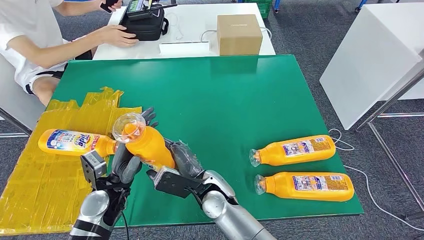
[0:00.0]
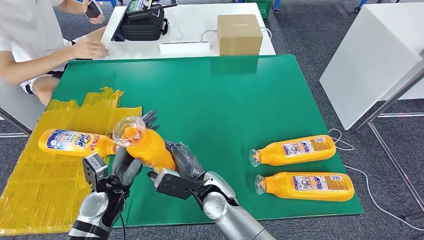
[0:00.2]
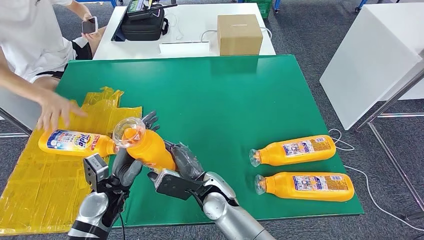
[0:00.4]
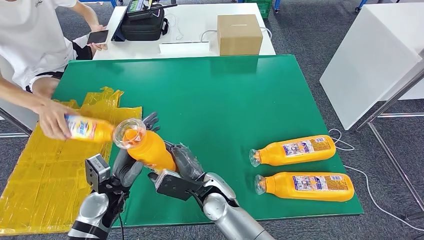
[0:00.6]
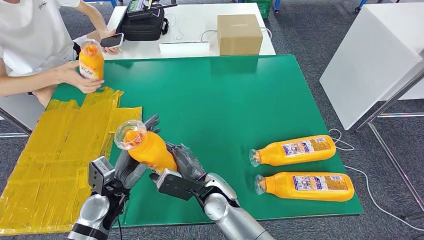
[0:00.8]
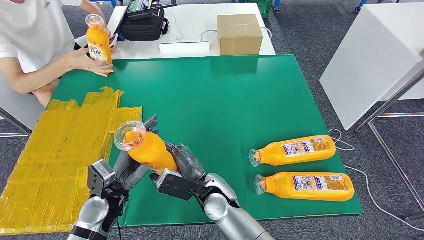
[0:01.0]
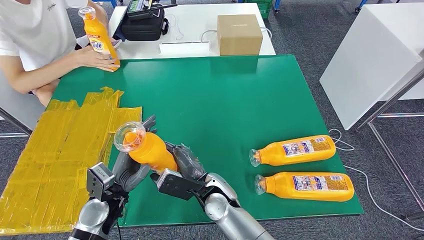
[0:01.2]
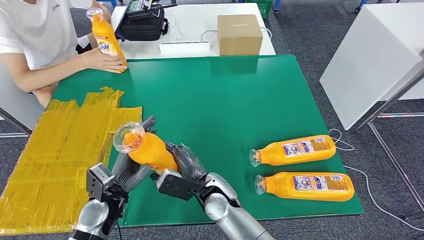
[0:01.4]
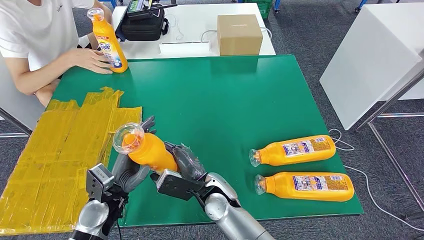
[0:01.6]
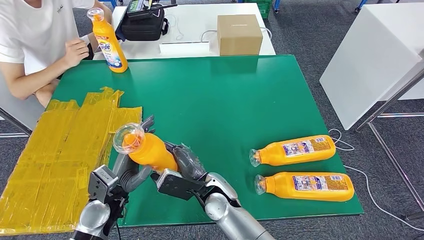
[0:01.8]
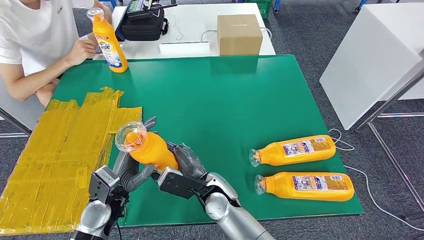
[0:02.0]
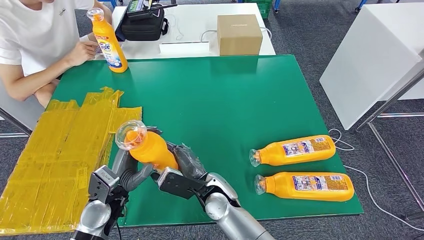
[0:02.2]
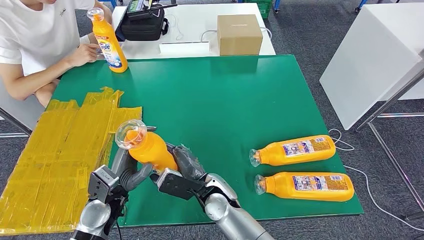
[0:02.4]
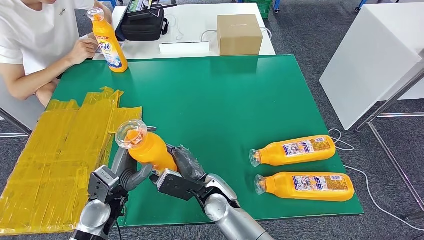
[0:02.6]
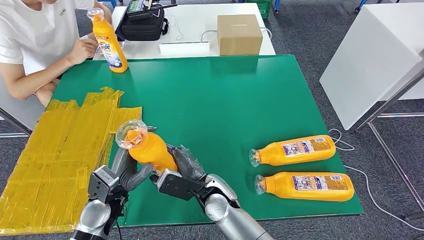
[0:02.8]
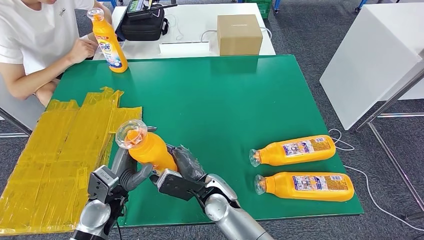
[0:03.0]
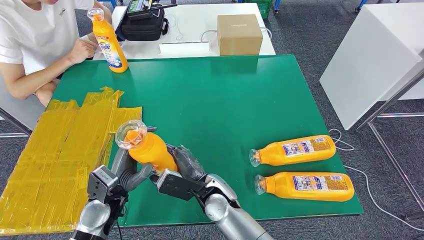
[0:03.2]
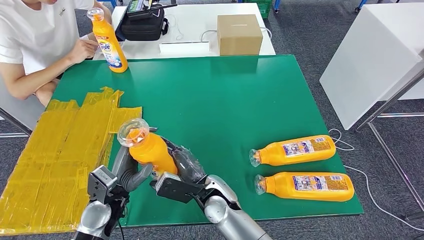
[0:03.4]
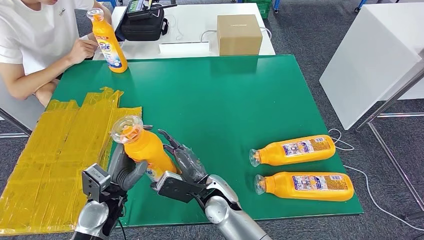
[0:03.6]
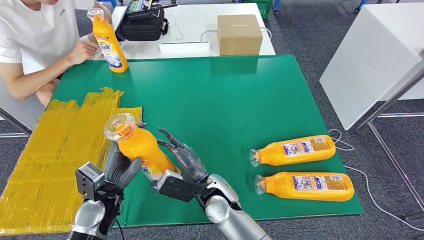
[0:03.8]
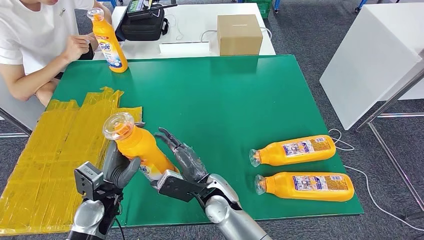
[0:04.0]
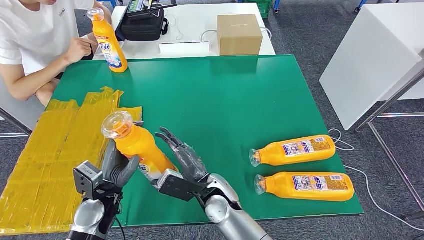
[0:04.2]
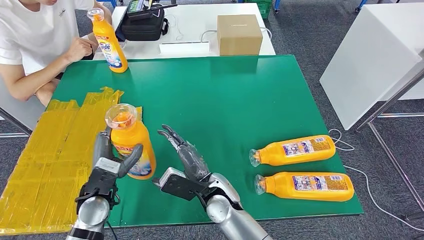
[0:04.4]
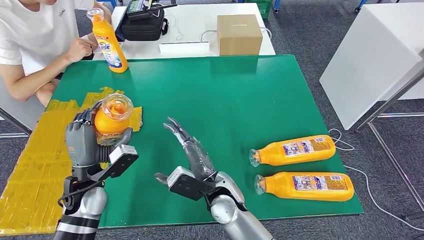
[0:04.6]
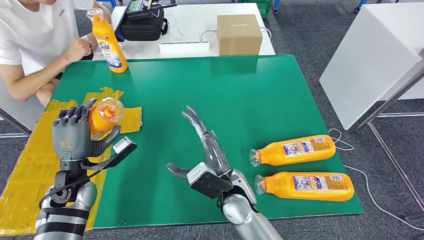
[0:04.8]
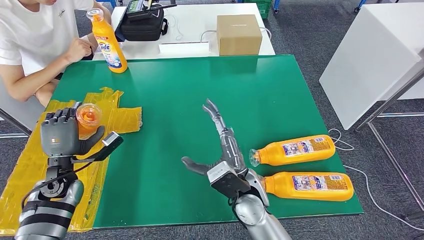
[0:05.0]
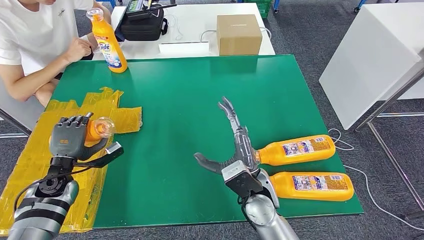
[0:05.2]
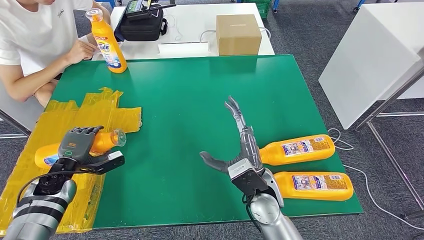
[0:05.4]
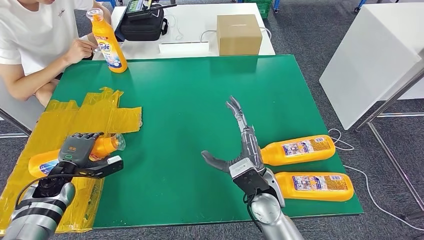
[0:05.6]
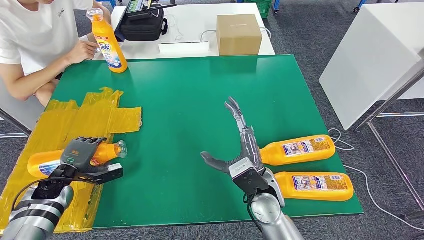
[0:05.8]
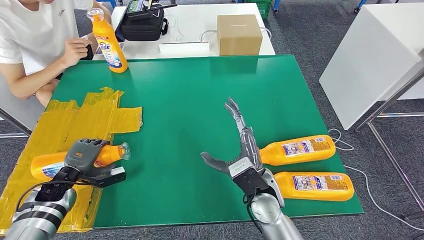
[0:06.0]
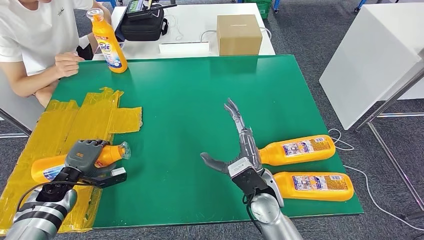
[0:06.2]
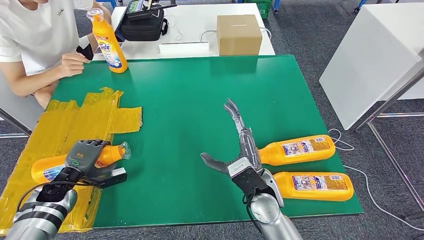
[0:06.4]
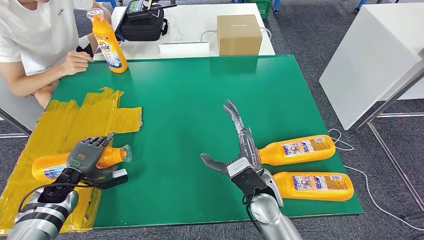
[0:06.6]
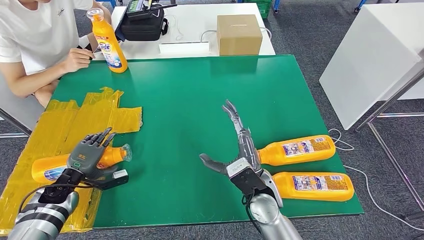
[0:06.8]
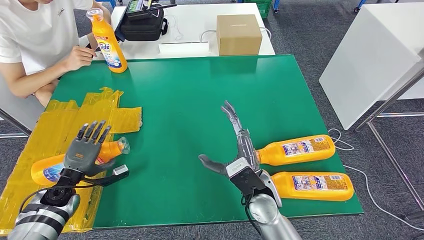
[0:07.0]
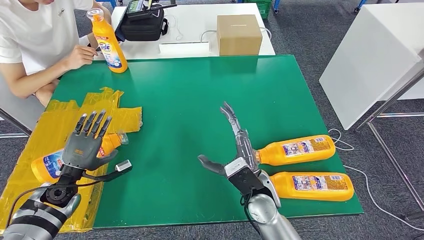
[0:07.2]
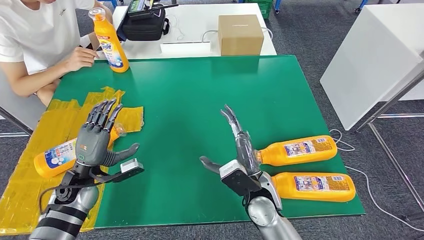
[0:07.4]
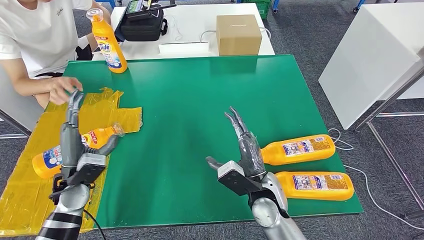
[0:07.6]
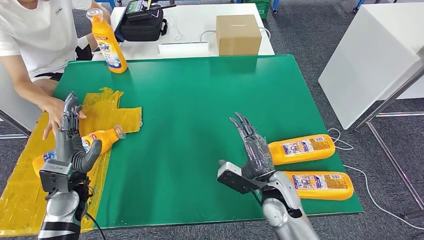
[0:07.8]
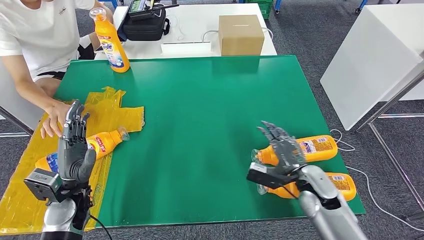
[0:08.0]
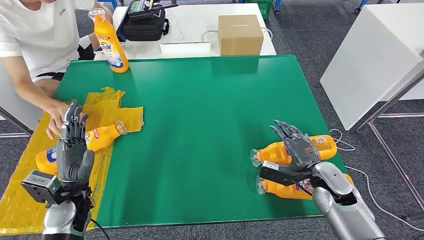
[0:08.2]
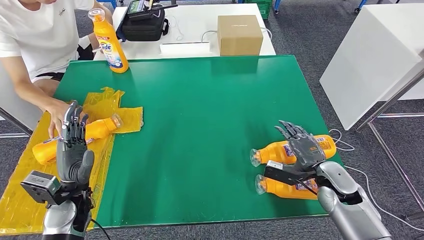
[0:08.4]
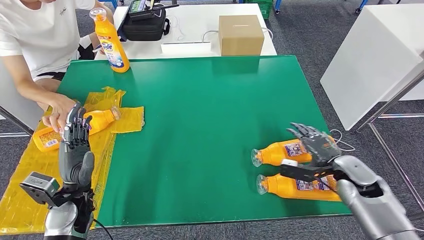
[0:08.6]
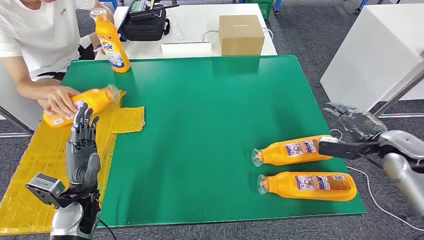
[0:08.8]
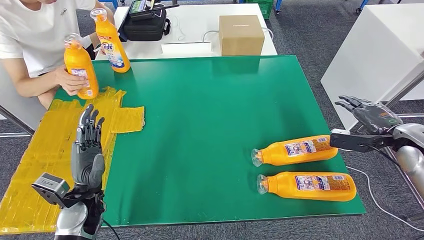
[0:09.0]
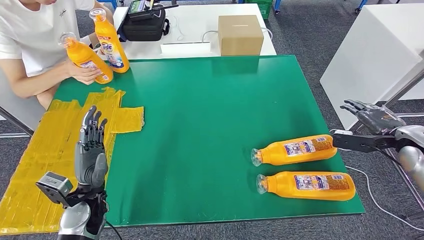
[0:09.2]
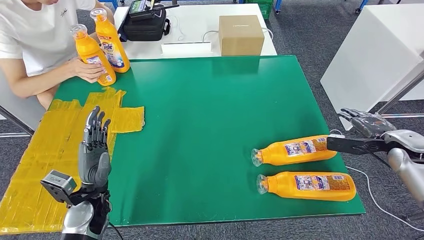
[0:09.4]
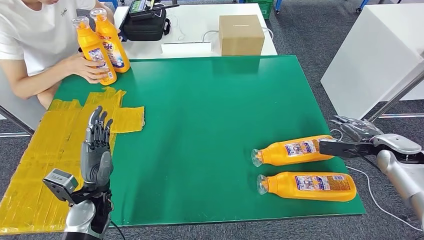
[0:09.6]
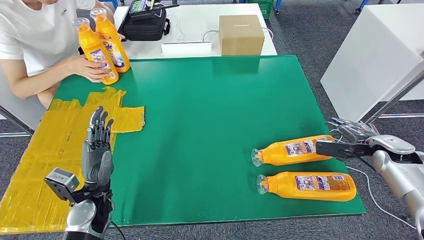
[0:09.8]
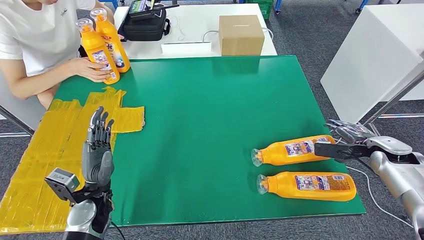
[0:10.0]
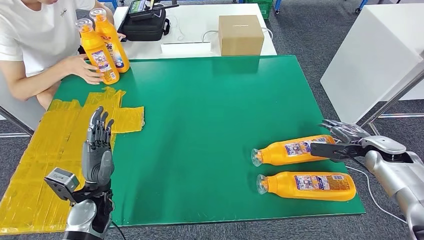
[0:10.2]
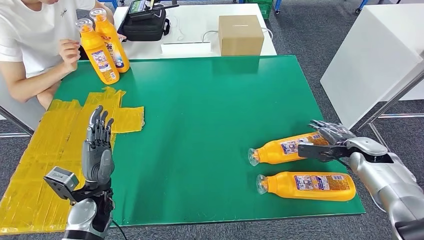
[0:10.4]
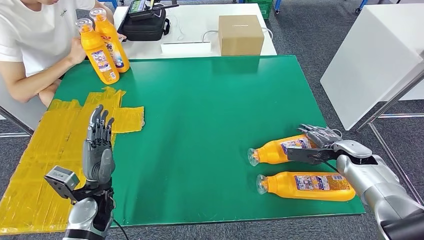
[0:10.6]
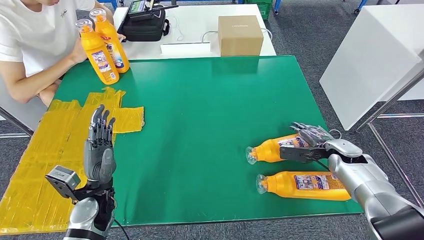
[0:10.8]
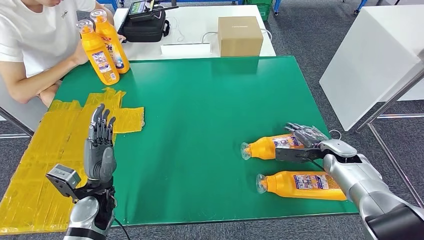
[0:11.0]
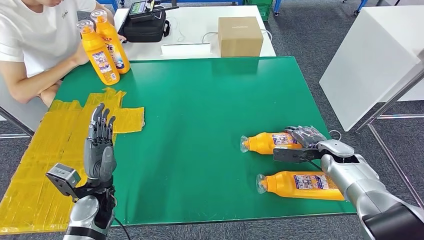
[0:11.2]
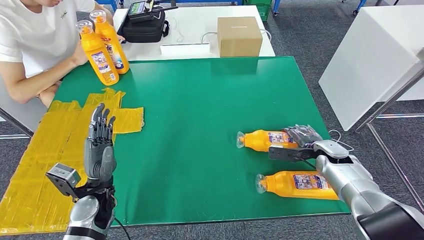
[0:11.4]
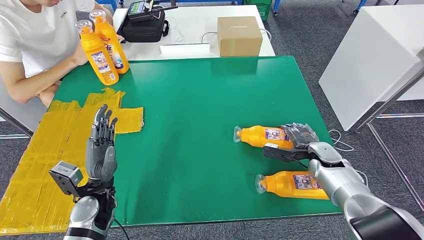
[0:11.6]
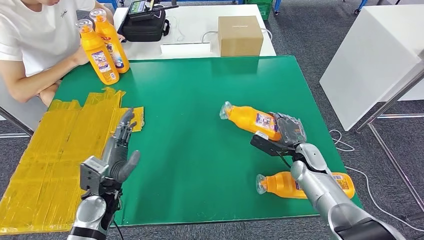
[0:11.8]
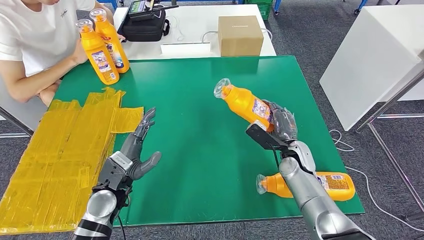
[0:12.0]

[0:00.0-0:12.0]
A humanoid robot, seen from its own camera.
Step, 0:00.0 to 0:08.6: Flip the bottle to face forward.
0:00.0 to 0:01.6: The hands move only a little.
0:01.6 to 0:03.0: The two hands keep their place.
0:04.4 to 0:06.0: The left hand goes approximately 15 cm to the left and downward; the right hand goes approximately 10 cm to the right.
0:06.0 to 0:07.6: The left hand shifts about 10 cm to the right and upward.
0:09.0 to 0:10.4: The right hand moves downward, roughly 10 cm.

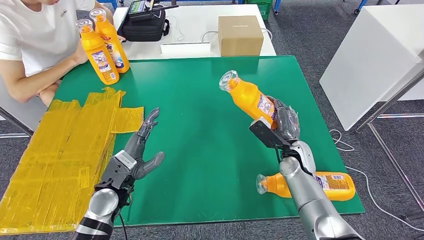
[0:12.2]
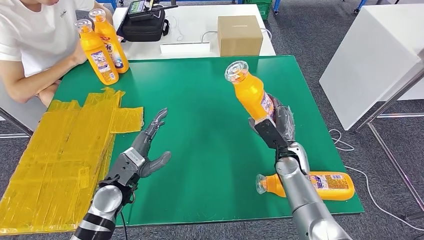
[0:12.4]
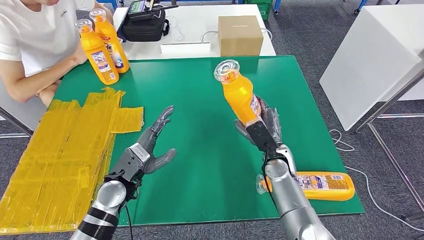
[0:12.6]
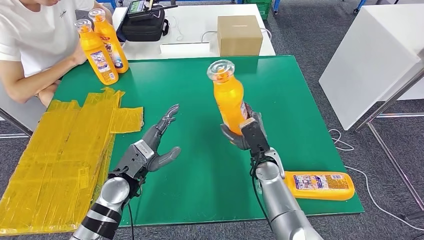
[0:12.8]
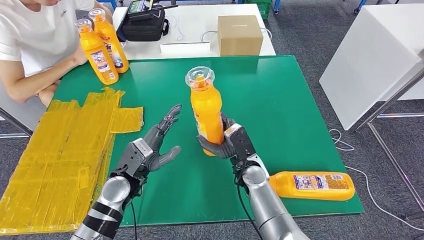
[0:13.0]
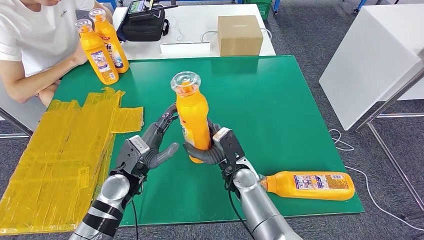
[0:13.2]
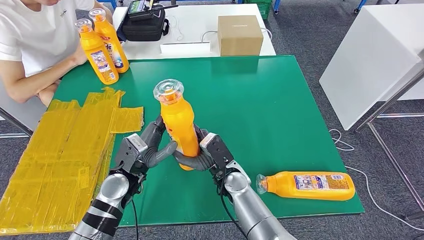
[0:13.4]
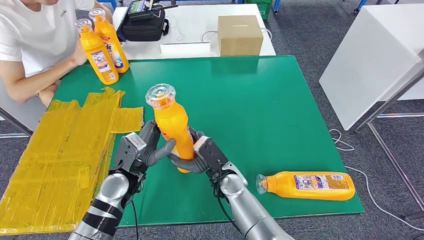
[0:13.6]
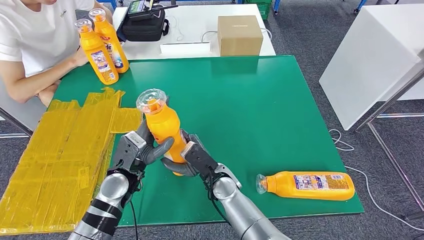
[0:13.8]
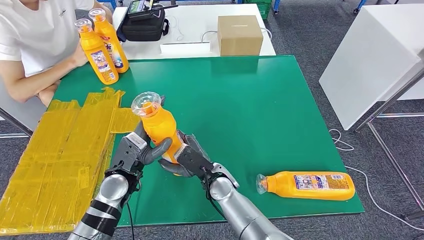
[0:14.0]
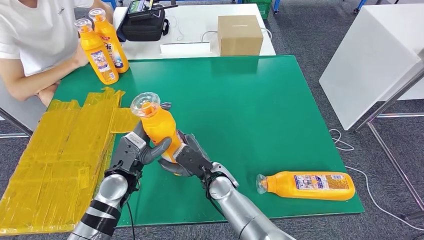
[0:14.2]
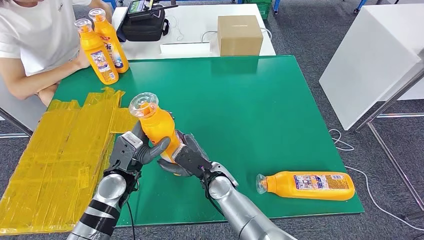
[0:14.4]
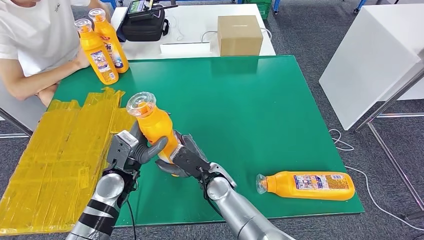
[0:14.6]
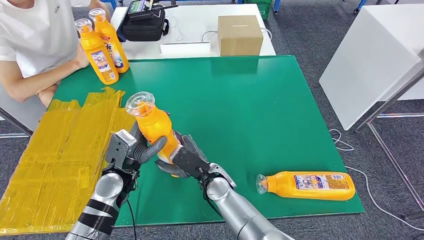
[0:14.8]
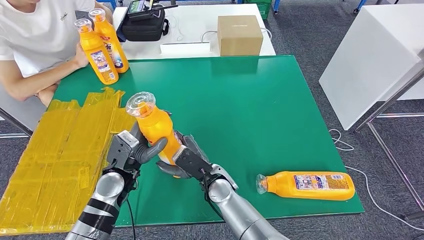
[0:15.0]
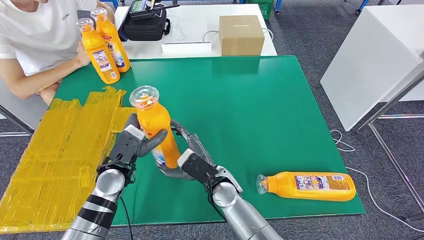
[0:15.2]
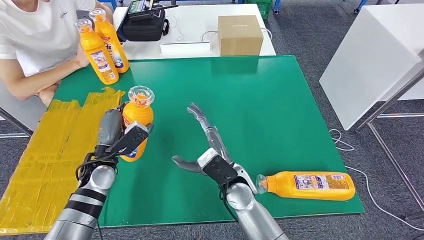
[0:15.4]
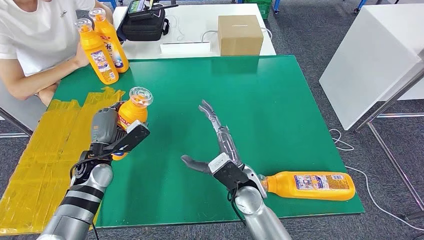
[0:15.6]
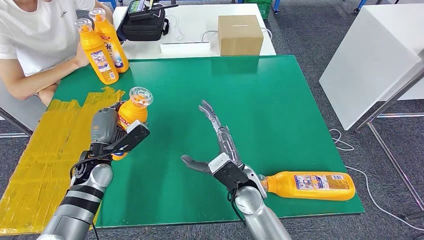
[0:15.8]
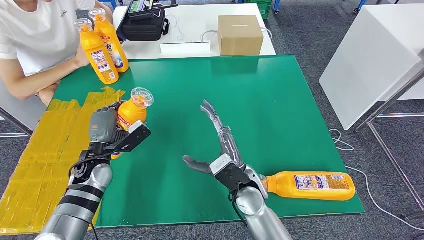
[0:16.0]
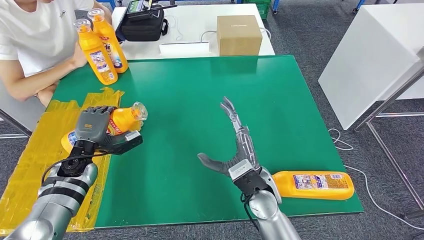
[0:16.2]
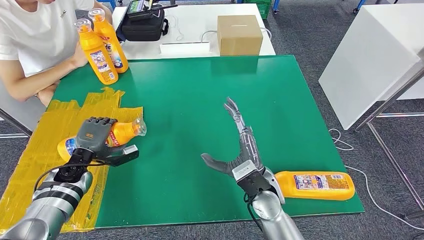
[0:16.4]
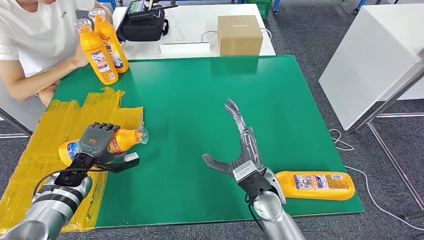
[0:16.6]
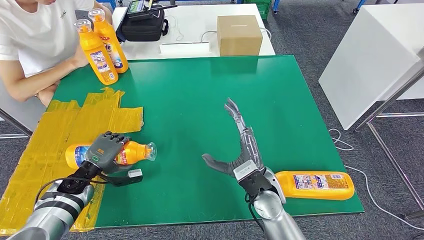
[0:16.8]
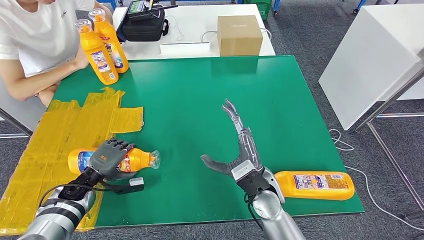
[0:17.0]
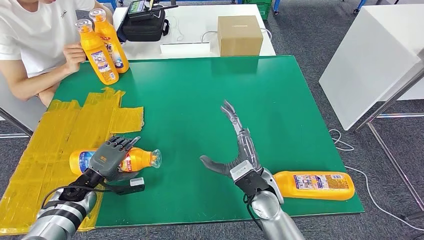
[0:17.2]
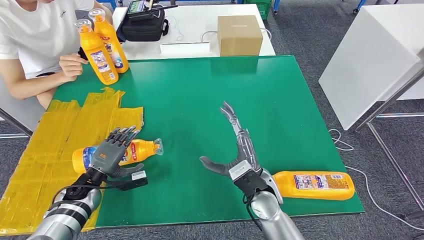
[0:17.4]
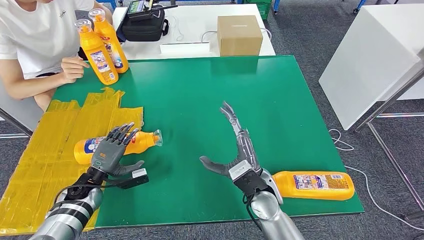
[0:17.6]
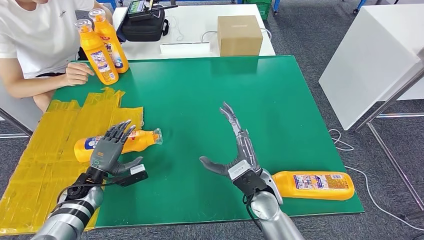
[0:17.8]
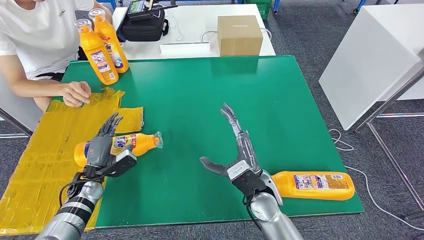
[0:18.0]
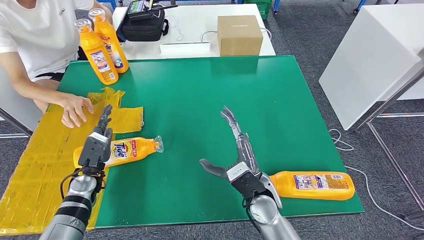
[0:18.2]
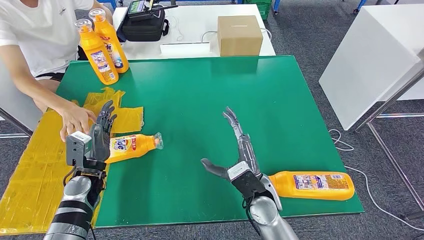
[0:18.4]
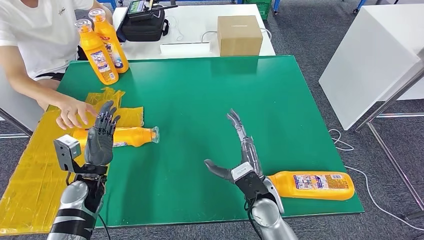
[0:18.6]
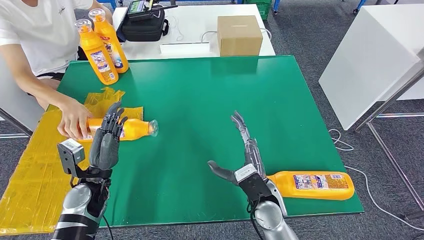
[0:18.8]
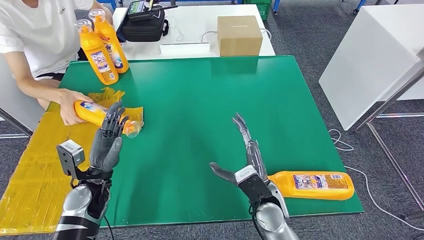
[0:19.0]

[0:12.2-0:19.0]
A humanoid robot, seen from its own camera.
Step, 0:12.2 to 0:14.6: Pick up the bottle from the table.
0:12.2 to 0:13.6: The right hand is displaced to the left by approximately 20 cm.
0:13.6 to 0:15.0: The hands move only a little.
0:15.0 to 0:16.2: The left hand is displaced to the left by about 10 cm. The right hand moves to the right, about 10 cm.
0:16.2 to 0:17.6: The left hand shifts roughly 10 cm downward.
0:17.6 to 0:19.0: The left hand travels upward and to the right by approximately 10 cm.
